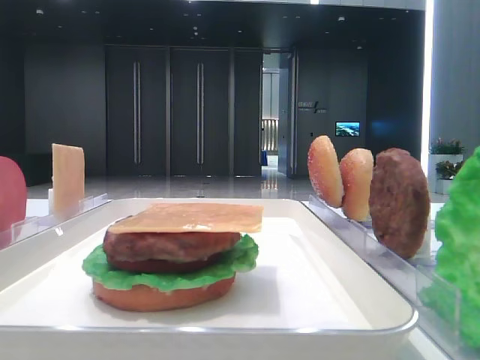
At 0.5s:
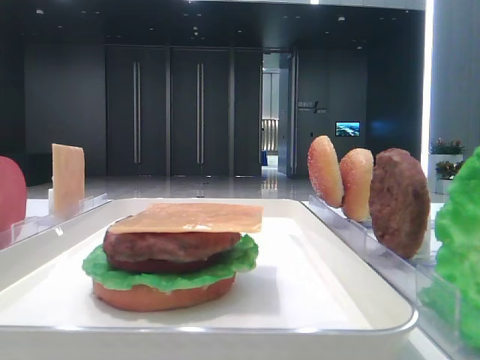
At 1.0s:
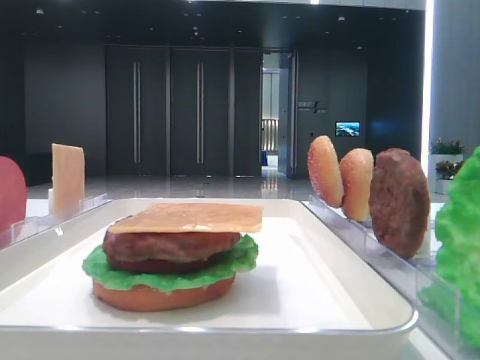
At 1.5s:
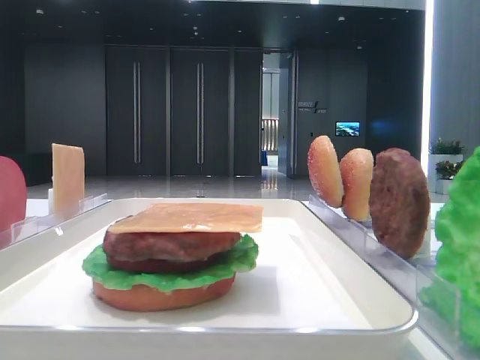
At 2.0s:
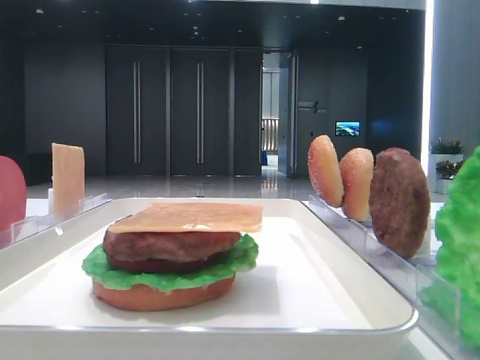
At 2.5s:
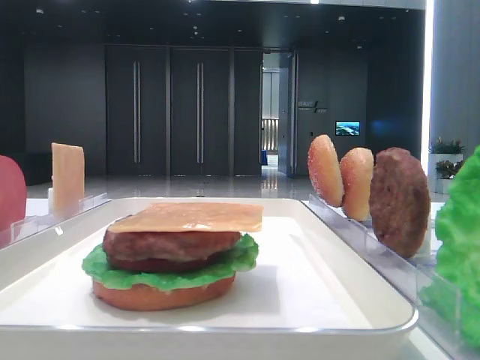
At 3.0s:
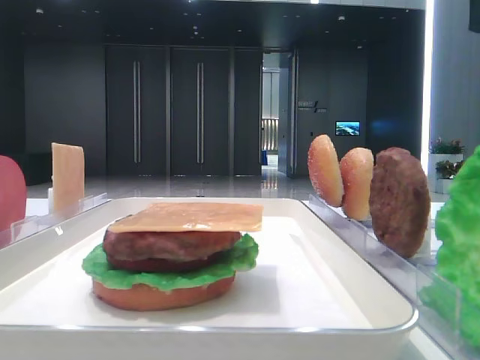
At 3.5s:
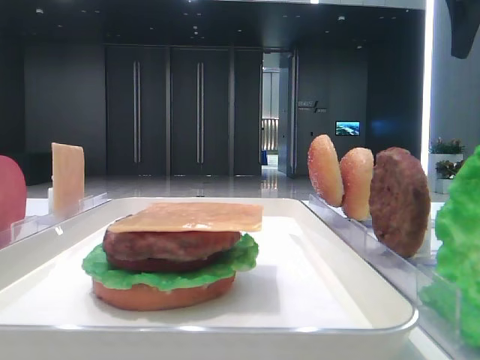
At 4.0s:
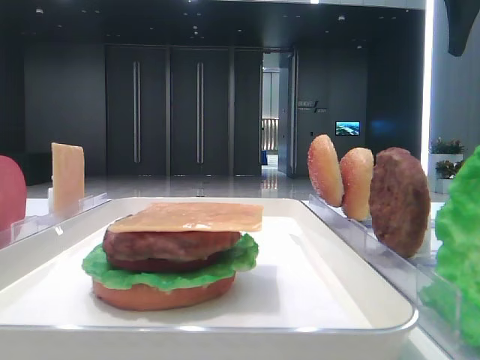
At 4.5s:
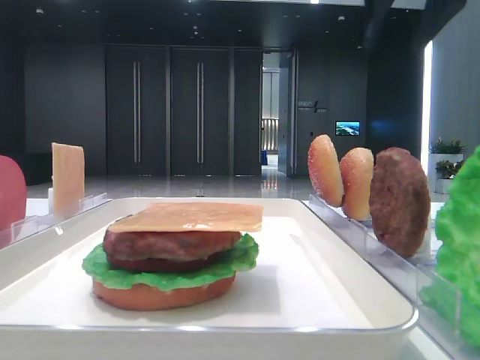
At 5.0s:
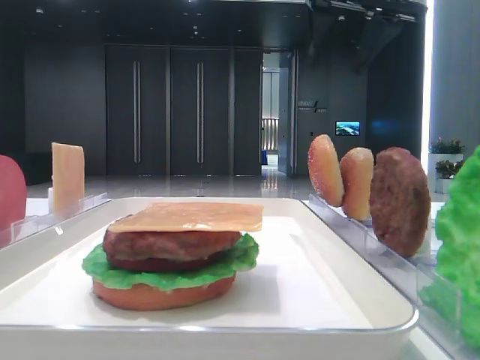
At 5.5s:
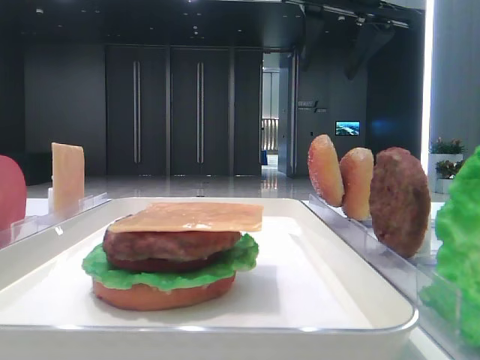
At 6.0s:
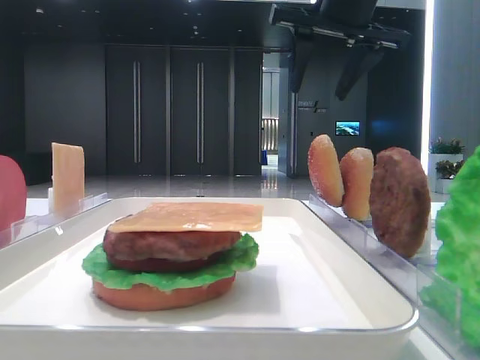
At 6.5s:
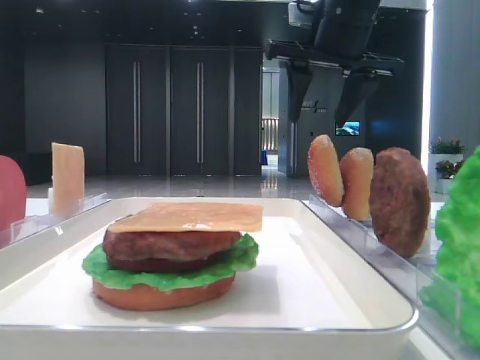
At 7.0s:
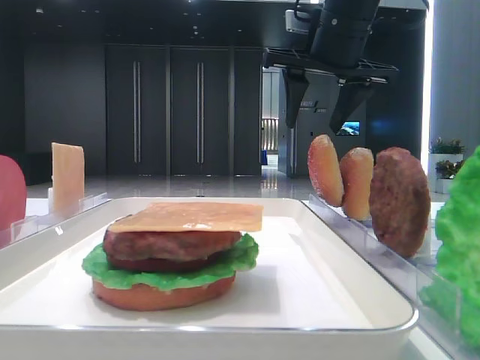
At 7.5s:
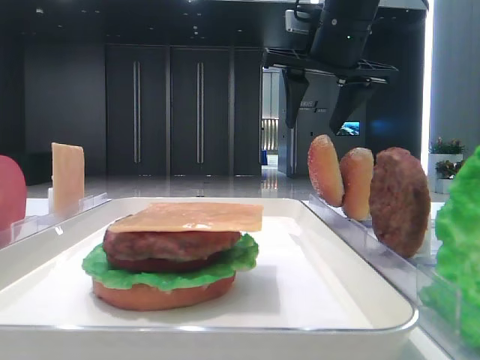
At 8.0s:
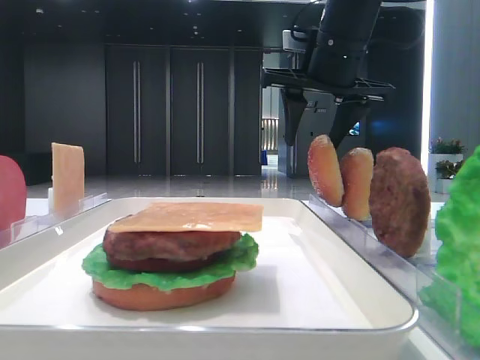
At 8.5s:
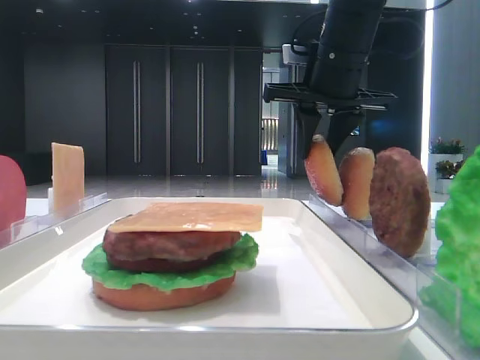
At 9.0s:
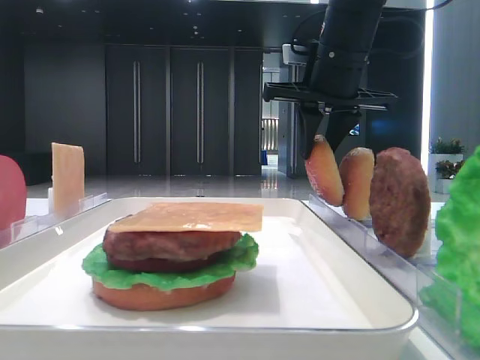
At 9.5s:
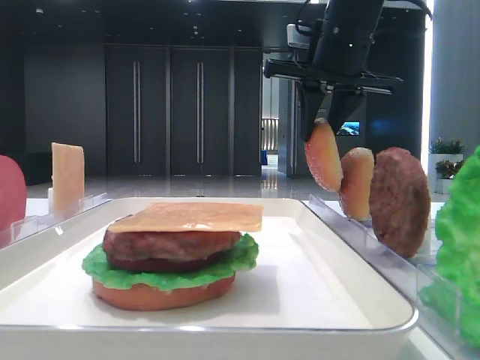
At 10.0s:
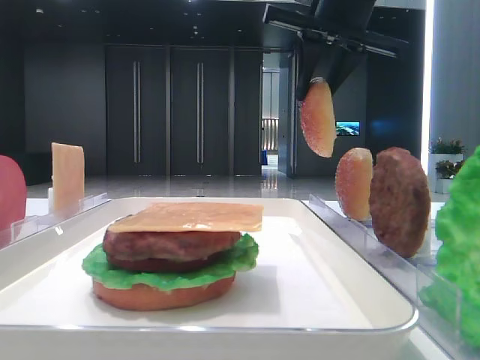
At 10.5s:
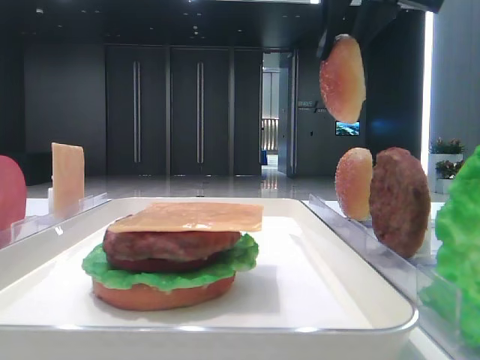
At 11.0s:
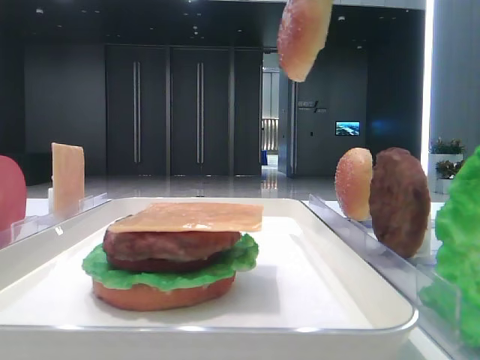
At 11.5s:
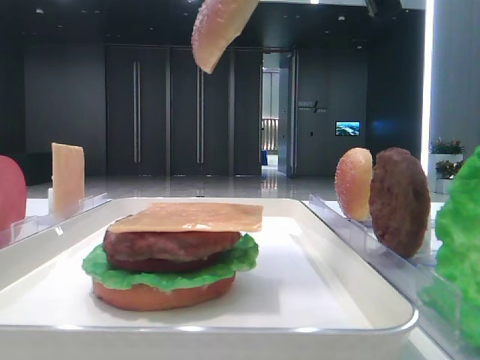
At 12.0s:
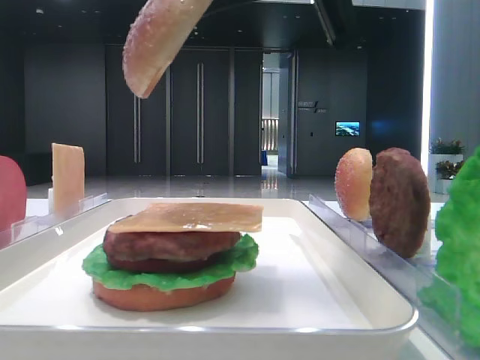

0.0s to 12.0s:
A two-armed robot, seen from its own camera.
Step, 0.0s to 8.5s: Pick up the top bread slice with the right hand.
2.0s to 4.0s: The right gripper shifts approximately 20 cm forward.
4.0s to 6.0s: The right gripper moves to the left, roughly 15 cm.
6.0s to 8.0s: The right gripper heads downward, covering approximately 5 cm.
8.0s to 10.0s: The right gripper moves upward, approximately 5 cm, and closes up.
10.0s to 12.0s: The right gripper moves backward, roughly 15 cm.

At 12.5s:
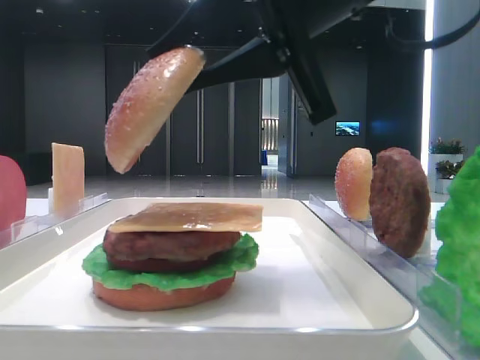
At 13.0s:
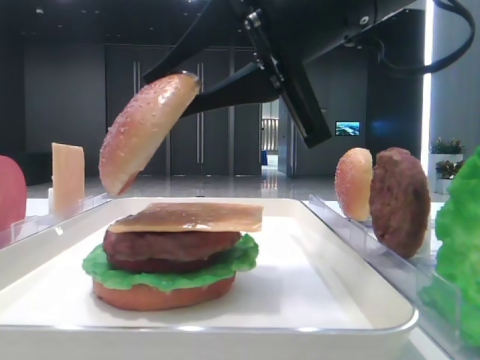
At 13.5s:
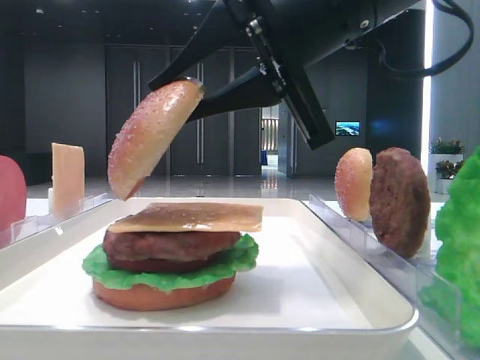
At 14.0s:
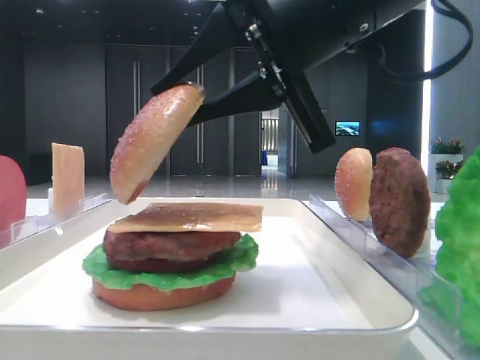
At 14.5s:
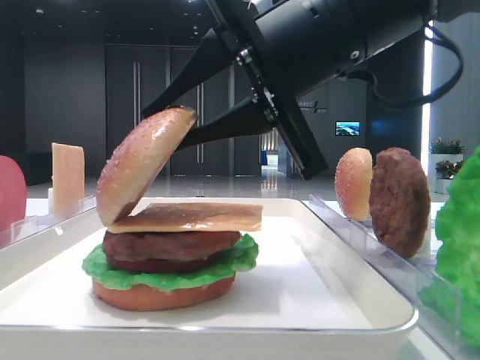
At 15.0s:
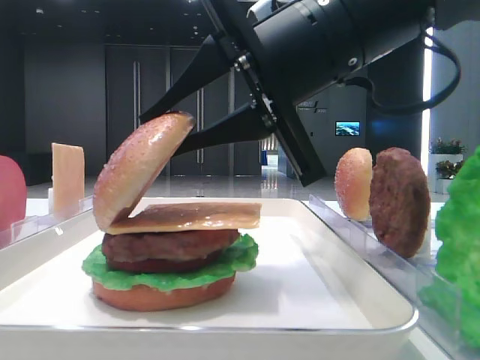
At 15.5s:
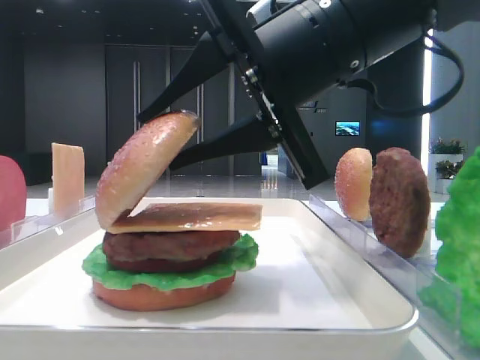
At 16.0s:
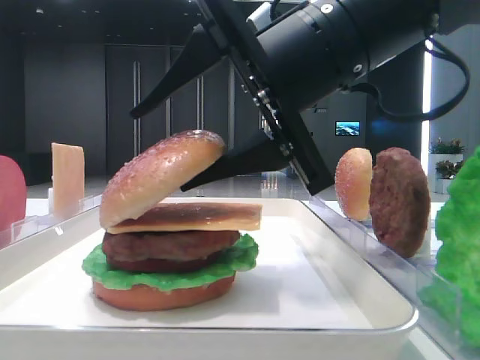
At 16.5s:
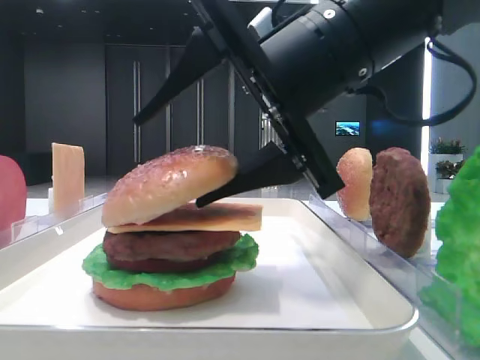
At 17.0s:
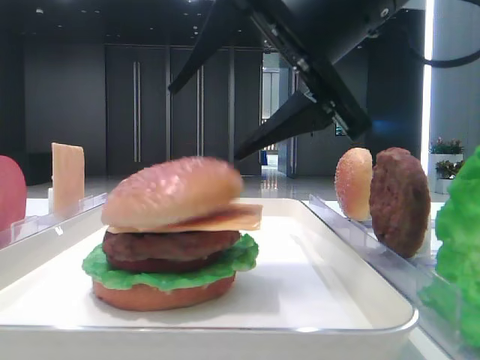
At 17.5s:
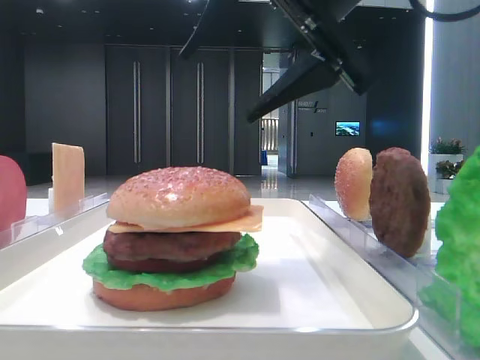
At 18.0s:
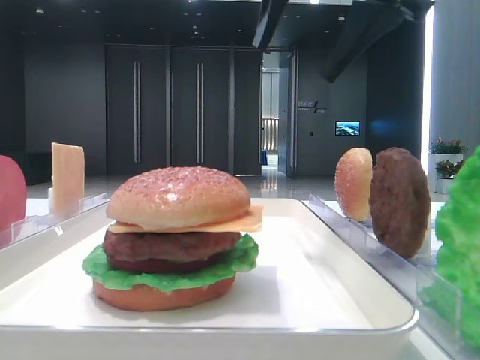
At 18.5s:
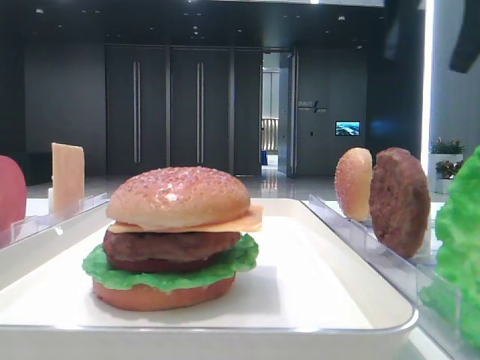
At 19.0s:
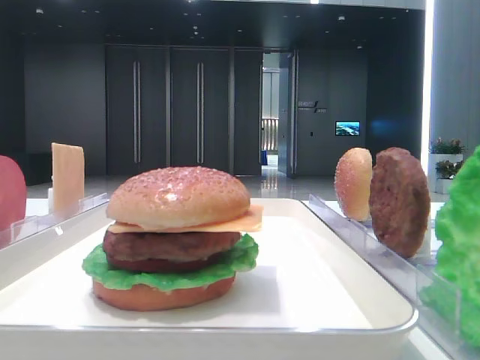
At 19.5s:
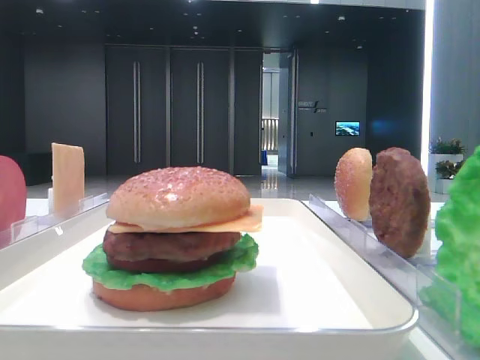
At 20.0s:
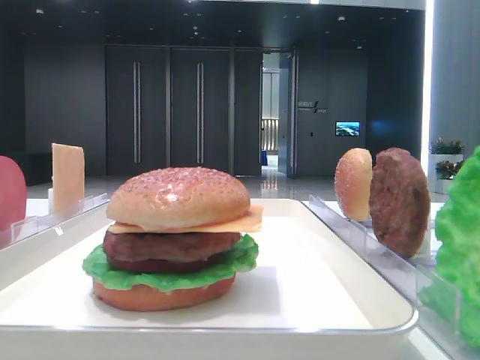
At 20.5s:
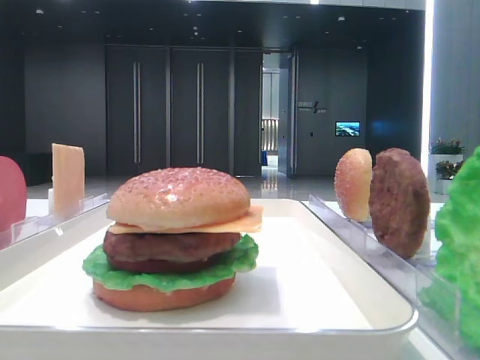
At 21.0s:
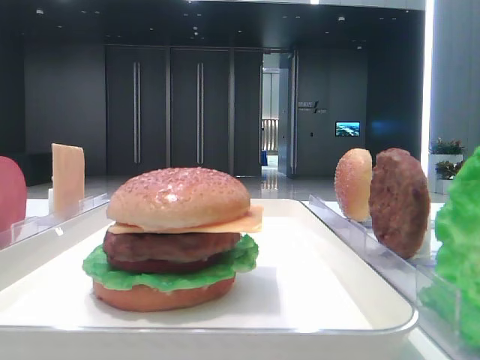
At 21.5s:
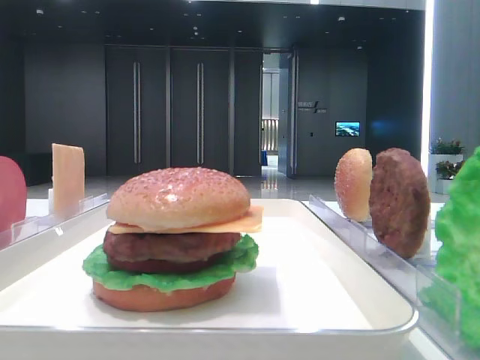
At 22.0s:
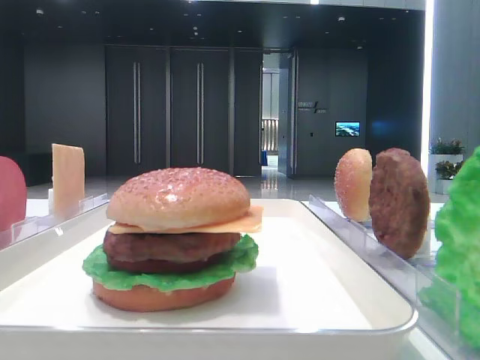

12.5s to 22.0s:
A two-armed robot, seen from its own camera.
Step, 12.5s to 17.0s: Place the top bread slice on the cheese with the right hand.
12.5s to 14.5s: The grippers stay close to where they were, moving slightly.
14.5s to 16.5s: The right gripper opens its fingers.
16.5s to 18.0s: The right gripper travels upward by about 10 cm.
18.0s to 20.0s: The right gripper heads to the right and backward, covering approximately 25 cm.

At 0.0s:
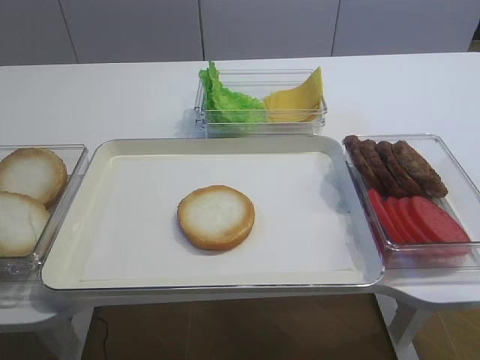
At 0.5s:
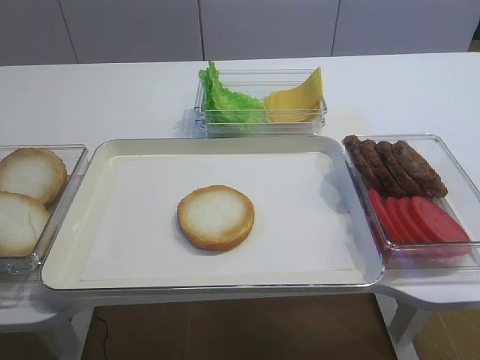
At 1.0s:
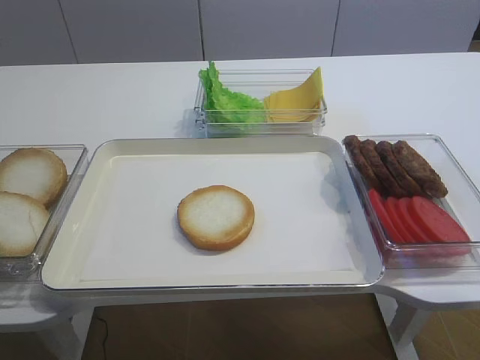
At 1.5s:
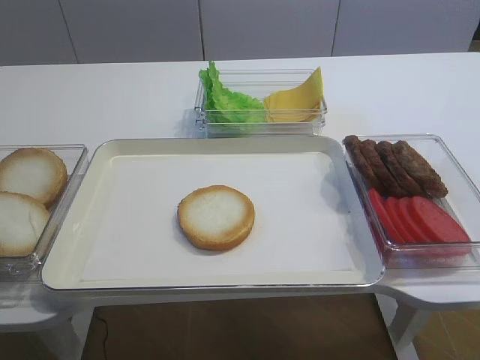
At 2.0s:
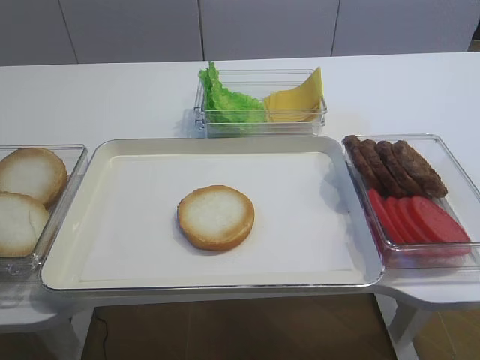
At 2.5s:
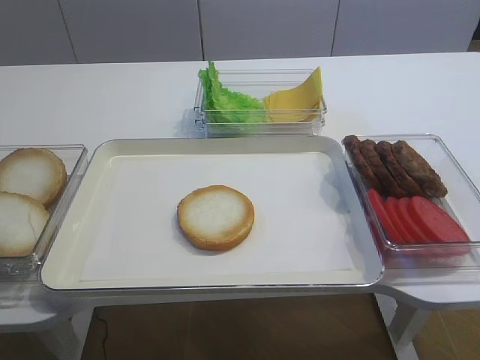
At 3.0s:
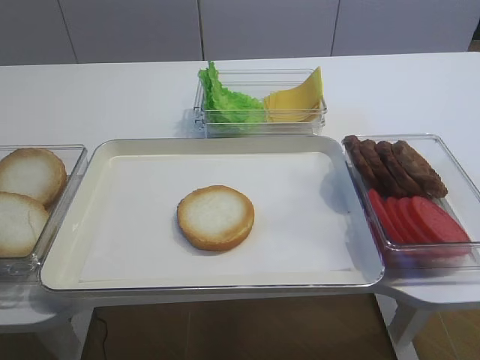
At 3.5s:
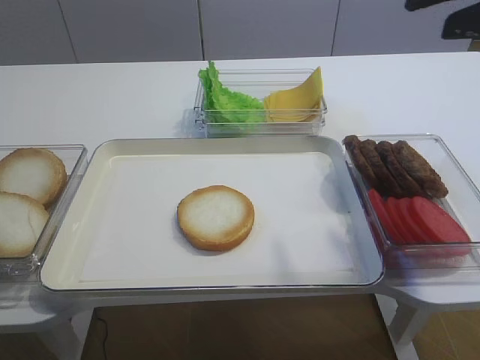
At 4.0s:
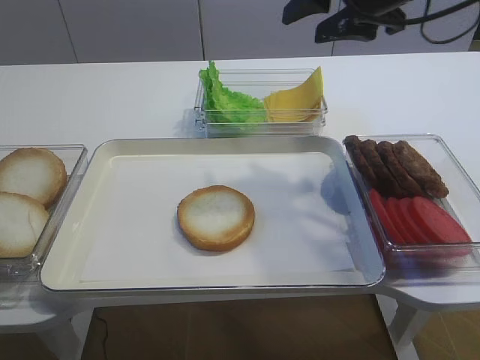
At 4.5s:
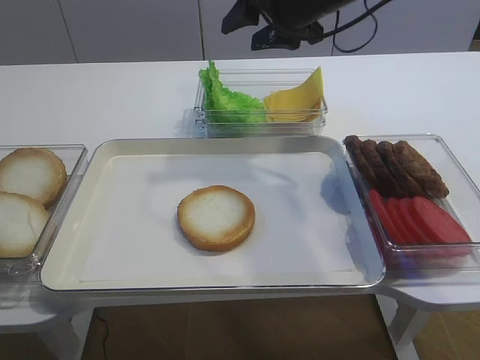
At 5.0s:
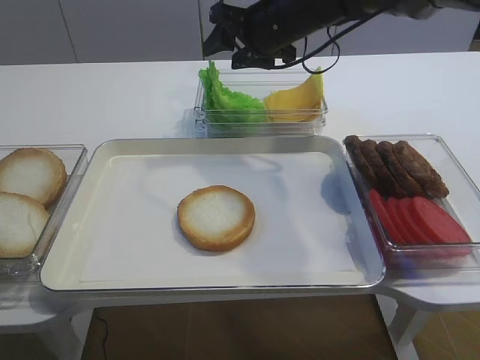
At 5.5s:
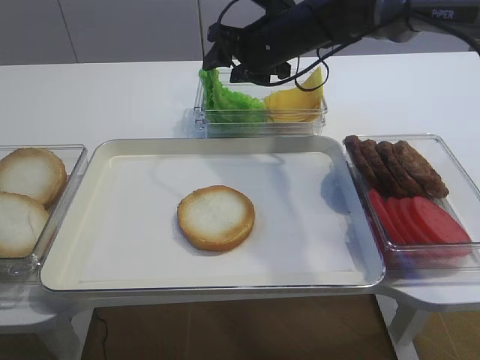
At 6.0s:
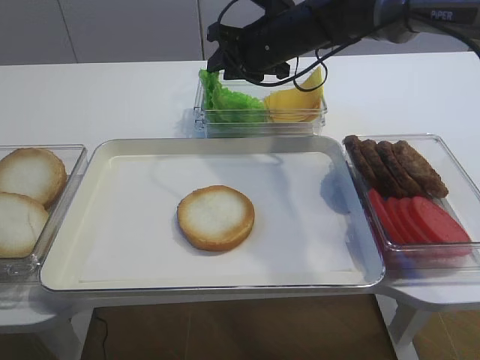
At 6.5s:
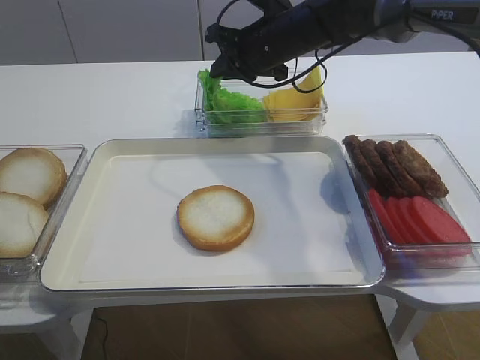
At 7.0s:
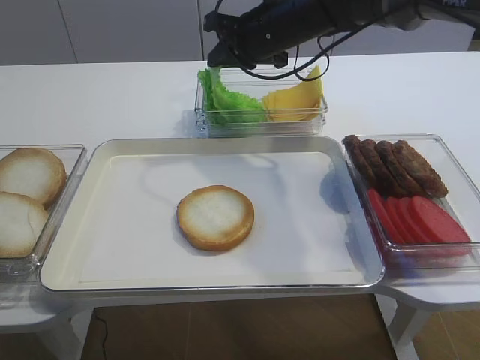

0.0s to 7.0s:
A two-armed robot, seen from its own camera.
2.0s to 3.5s: The right gripper is displaced forward by about 25 cm.
3.5s to 5.0s: The right gripper goes approximately 30 cm forward, to the left and downward.
5.0s to 7.0s: The right gripper closes up.
